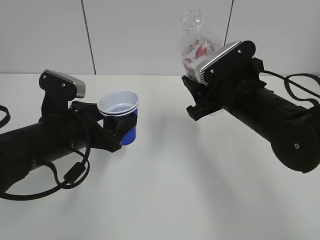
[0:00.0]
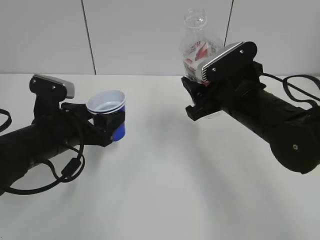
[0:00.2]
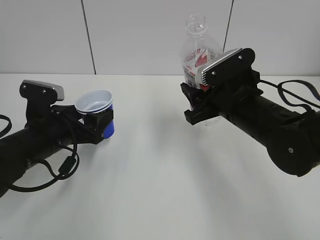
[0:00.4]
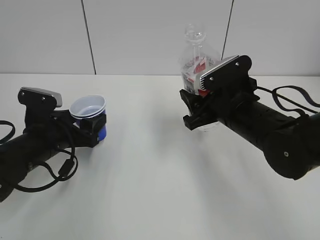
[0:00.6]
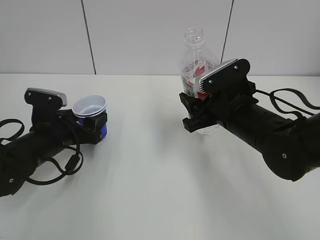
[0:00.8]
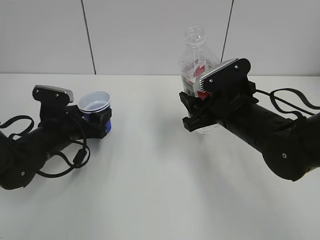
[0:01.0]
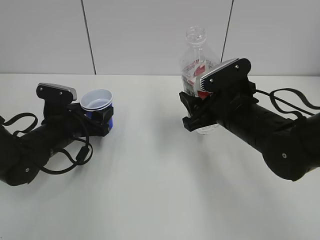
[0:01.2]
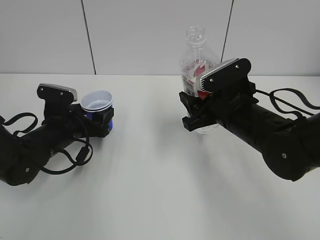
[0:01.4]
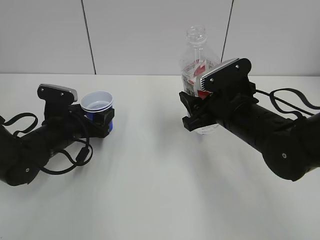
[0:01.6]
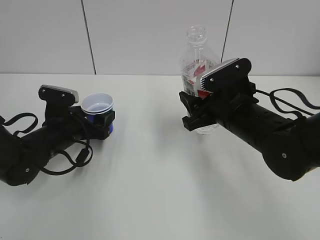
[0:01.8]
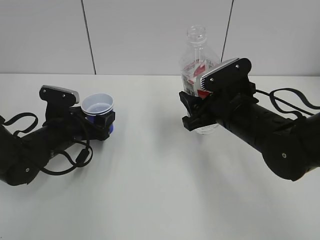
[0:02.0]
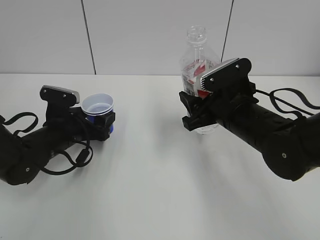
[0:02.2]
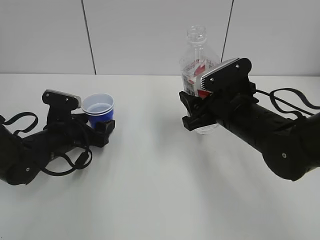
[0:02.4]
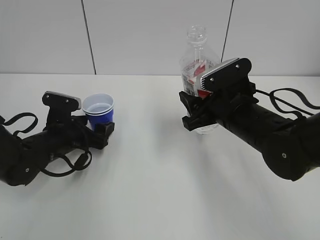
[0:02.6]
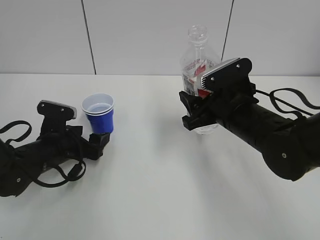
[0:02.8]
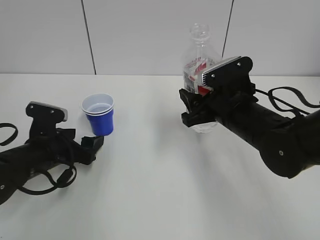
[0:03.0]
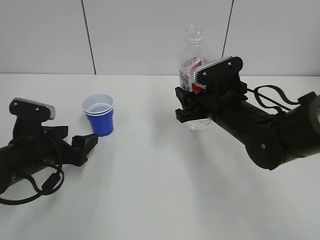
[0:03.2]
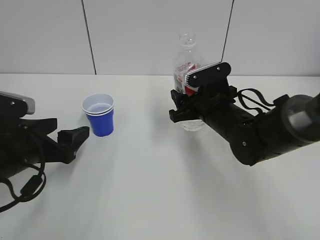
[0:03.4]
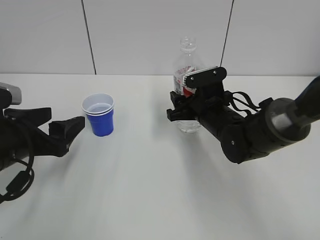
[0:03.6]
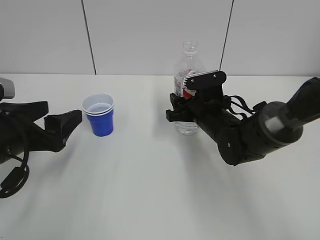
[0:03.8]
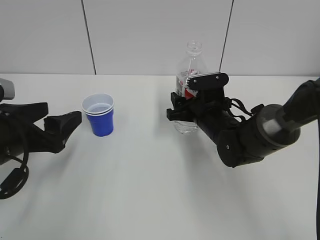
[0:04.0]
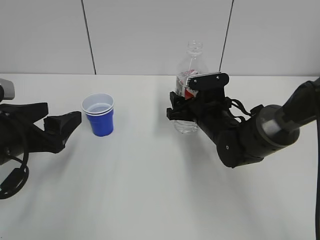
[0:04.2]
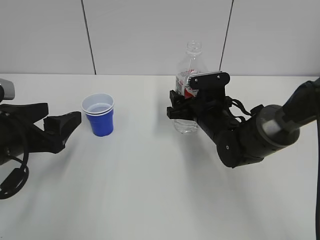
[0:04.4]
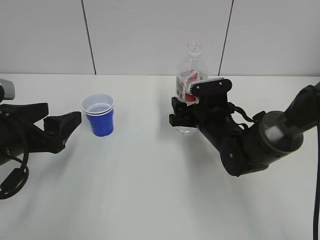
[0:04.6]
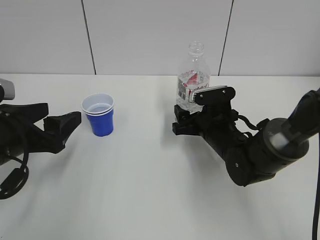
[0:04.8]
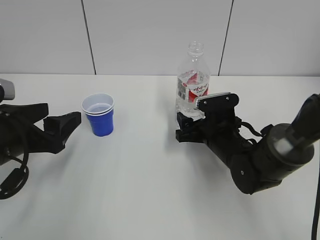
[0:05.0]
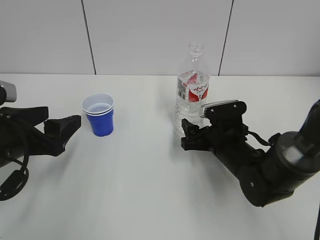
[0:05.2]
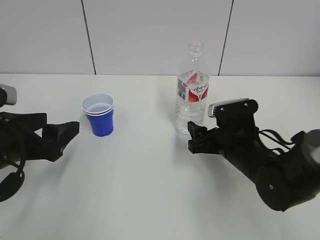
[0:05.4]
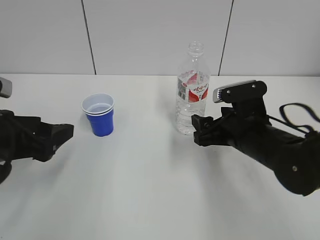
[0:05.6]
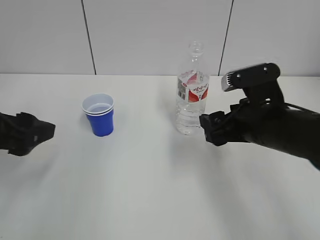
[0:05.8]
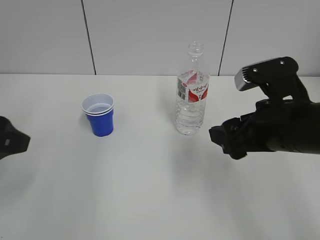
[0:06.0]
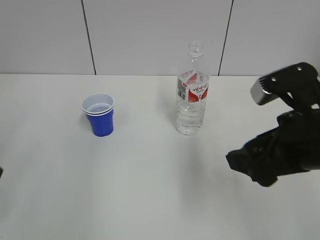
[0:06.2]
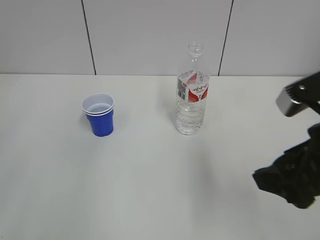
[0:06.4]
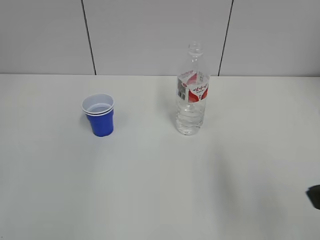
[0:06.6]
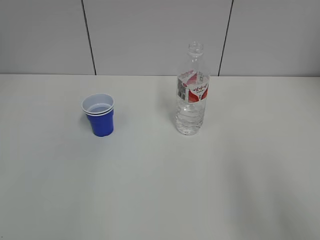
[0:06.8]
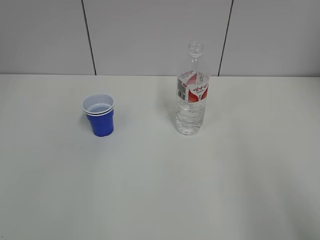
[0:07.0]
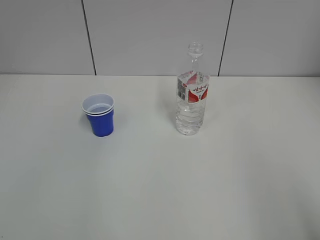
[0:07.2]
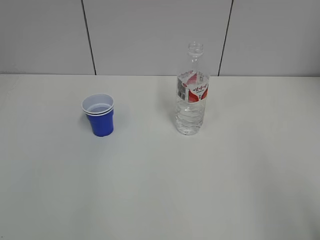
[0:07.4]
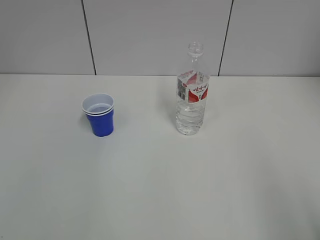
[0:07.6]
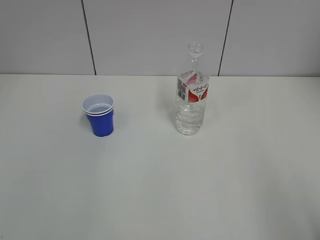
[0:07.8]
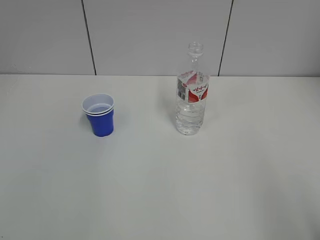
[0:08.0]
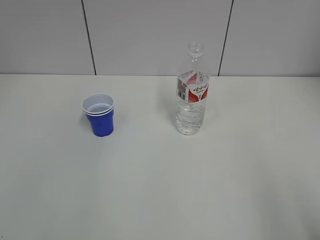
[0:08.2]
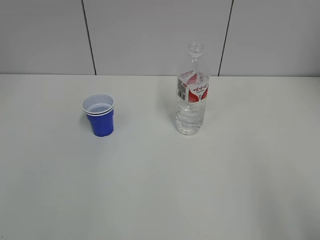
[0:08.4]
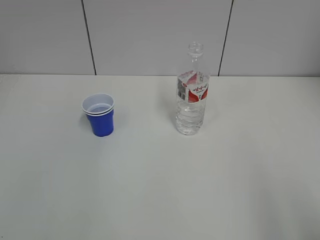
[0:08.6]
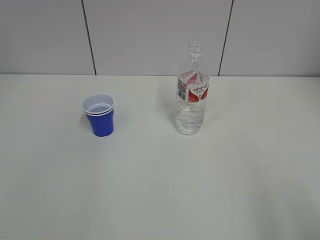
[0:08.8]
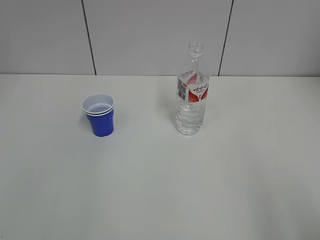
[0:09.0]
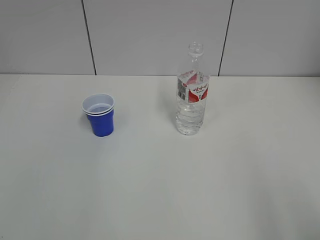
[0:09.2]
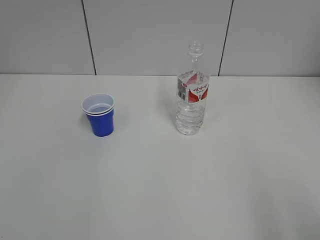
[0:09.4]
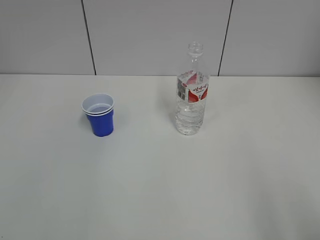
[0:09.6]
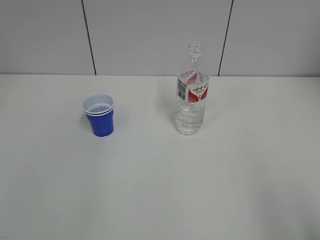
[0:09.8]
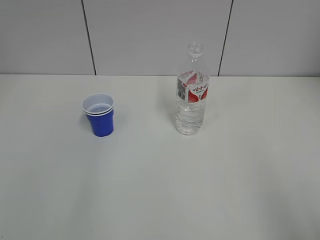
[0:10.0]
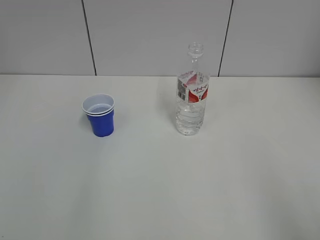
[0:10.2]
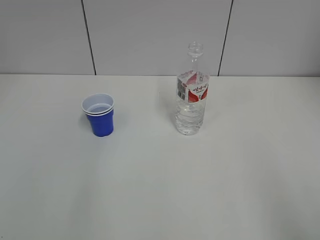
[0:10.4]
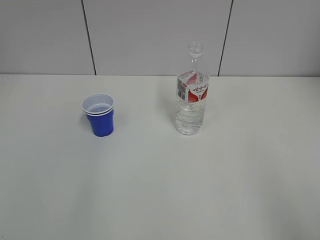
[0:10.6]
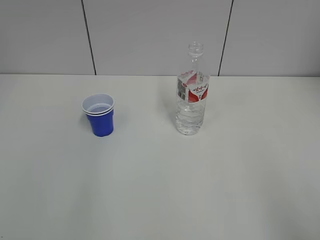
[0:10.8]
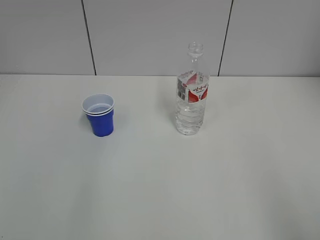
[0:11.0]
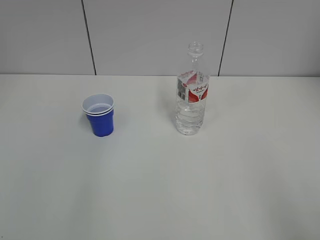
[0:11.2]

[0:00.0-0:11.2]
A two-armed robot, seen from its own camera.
Step, 0:00.0 to 0:03.0: Place the paper cup with the left hand.
Step, 0:03.2 to 0:05.2: Place the water bottle with the right hand.
0:00.0 to 0:01.6: The left gripper shifts about 10 cm forward and downward.
0:01.6 to 0:03.2: The left gripper moves backward, roughly 5 cm.
0:03.2 to 0:04.8: The right gripper moves downward, some 5 cm, and opens up. Meanwhile the left gripper moves upward, some 5 cm.
0:04.8 to 0:06.4: The left gripper moves backward and upward, some 15 cm. The right gripper travels backward and upward by about 25 cm.
0:06.4 to 0:08.0: The right gripper is displaced backward and to the right by about 20 cm.

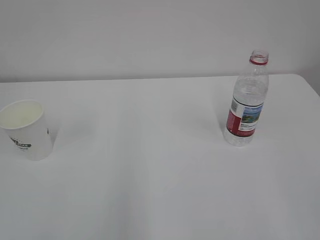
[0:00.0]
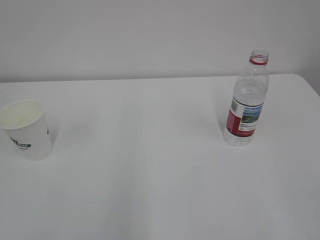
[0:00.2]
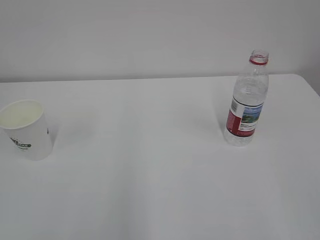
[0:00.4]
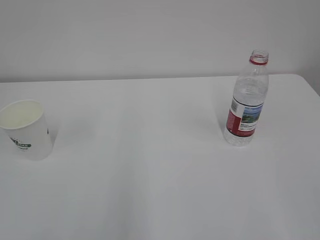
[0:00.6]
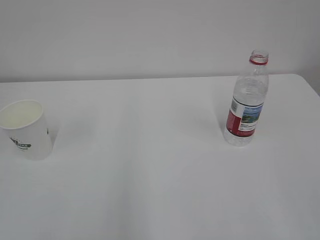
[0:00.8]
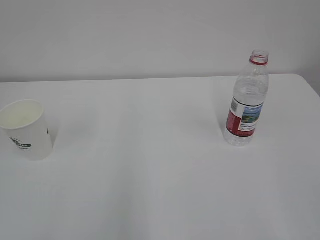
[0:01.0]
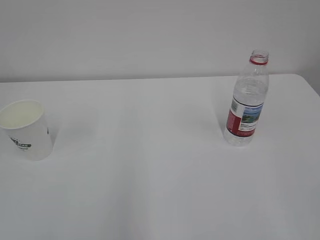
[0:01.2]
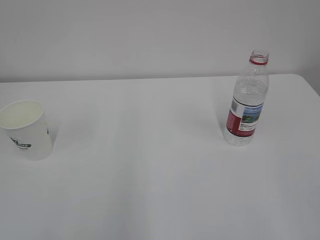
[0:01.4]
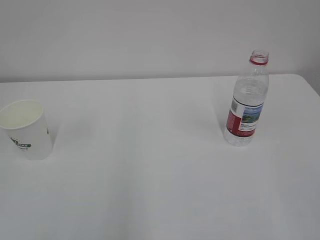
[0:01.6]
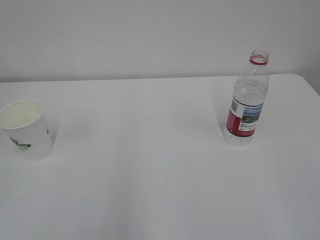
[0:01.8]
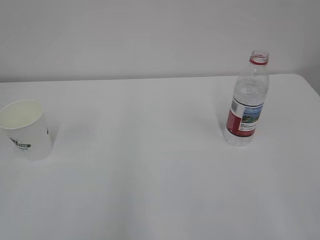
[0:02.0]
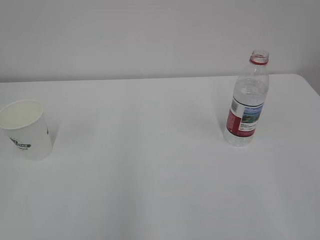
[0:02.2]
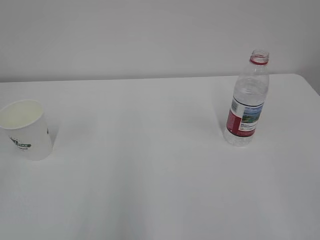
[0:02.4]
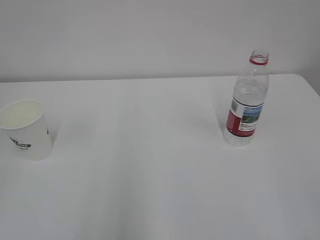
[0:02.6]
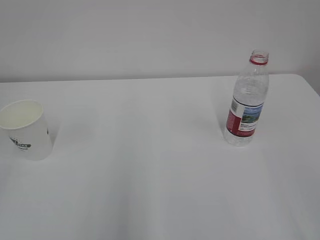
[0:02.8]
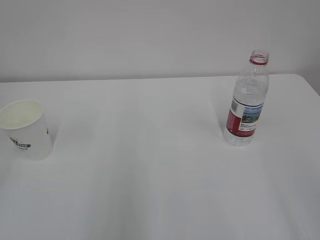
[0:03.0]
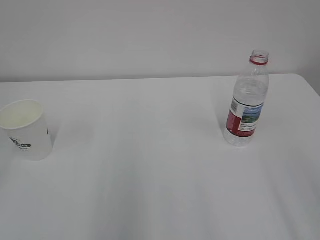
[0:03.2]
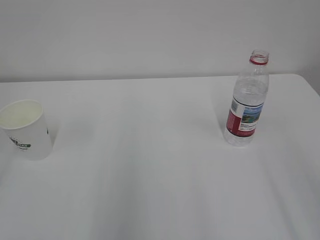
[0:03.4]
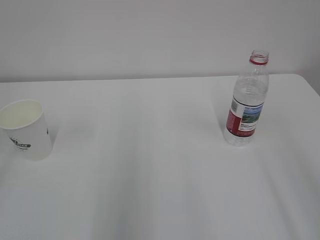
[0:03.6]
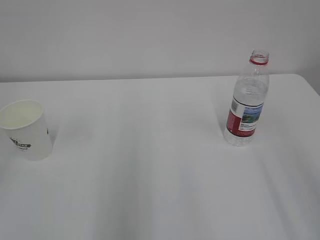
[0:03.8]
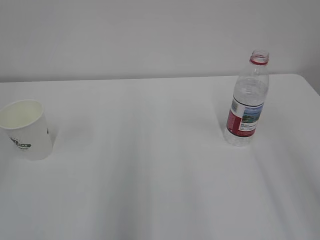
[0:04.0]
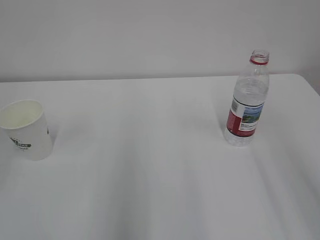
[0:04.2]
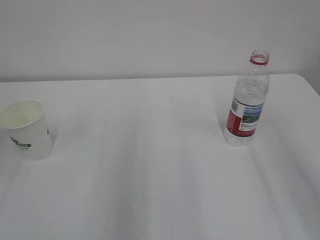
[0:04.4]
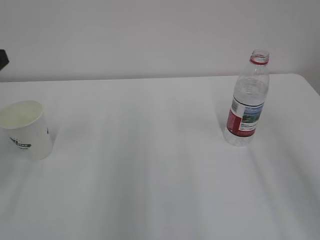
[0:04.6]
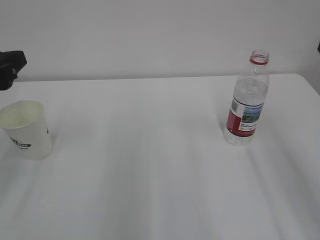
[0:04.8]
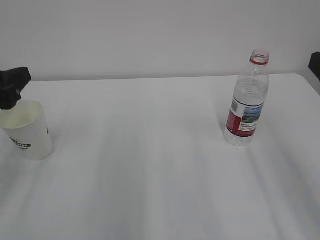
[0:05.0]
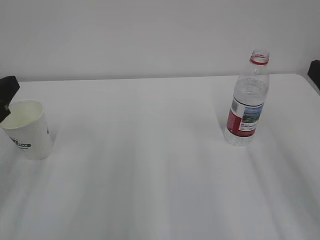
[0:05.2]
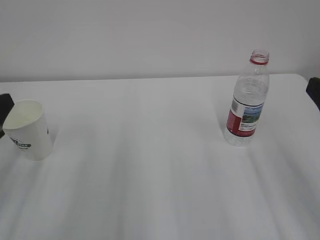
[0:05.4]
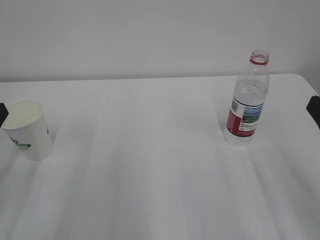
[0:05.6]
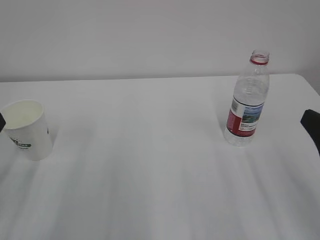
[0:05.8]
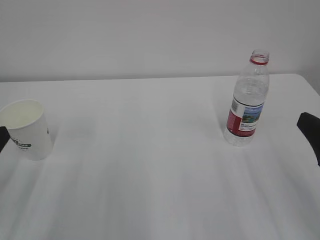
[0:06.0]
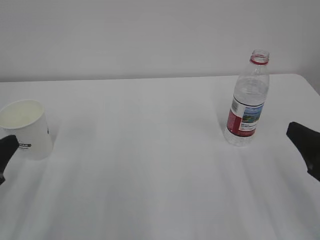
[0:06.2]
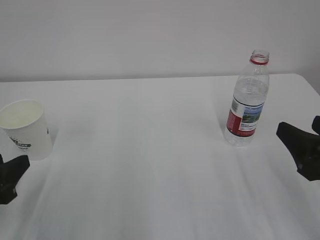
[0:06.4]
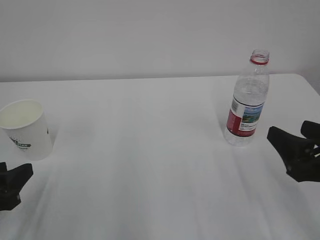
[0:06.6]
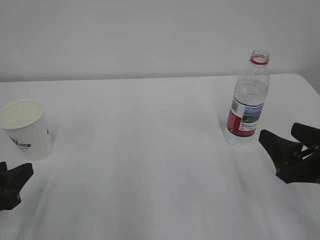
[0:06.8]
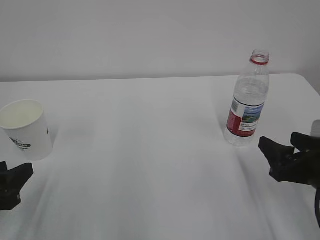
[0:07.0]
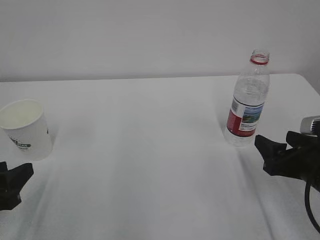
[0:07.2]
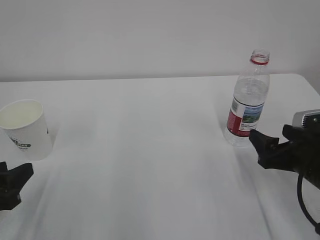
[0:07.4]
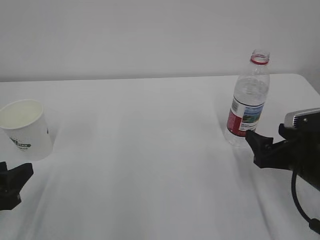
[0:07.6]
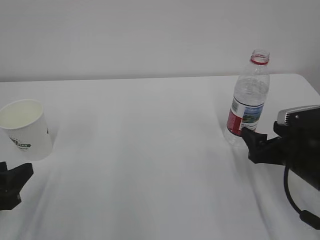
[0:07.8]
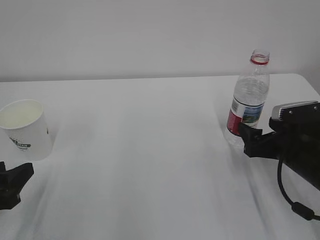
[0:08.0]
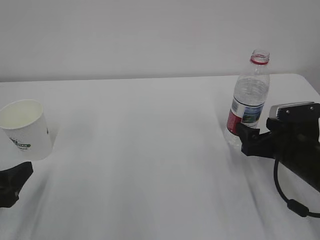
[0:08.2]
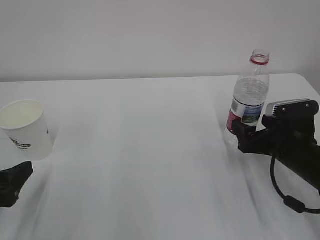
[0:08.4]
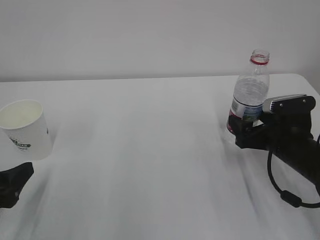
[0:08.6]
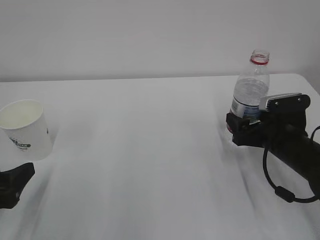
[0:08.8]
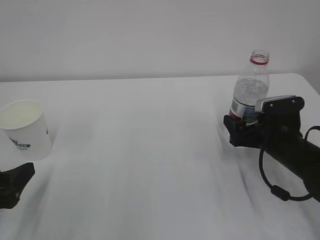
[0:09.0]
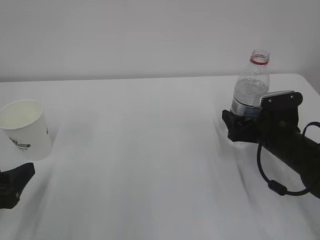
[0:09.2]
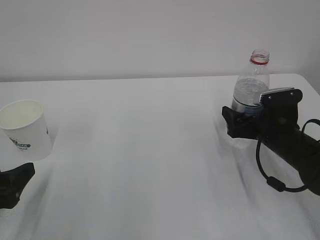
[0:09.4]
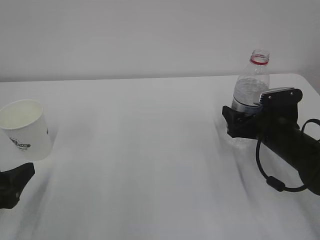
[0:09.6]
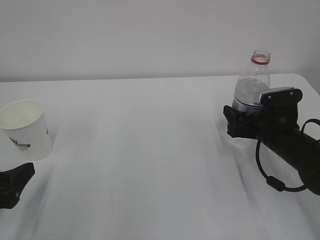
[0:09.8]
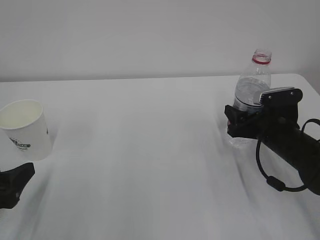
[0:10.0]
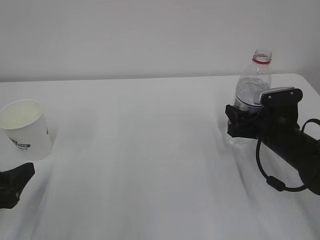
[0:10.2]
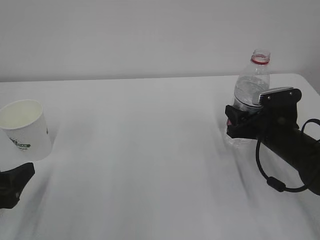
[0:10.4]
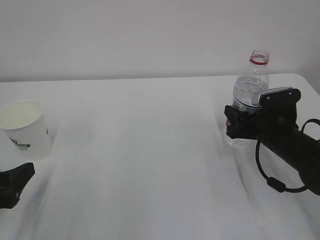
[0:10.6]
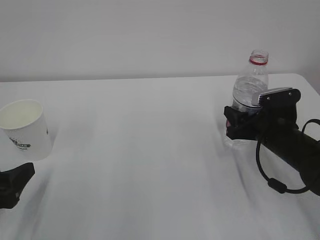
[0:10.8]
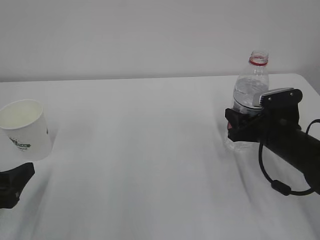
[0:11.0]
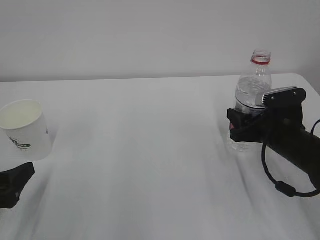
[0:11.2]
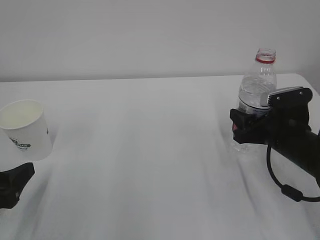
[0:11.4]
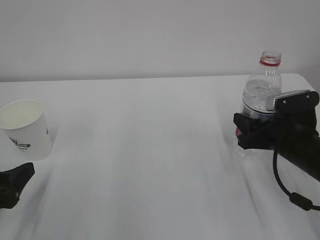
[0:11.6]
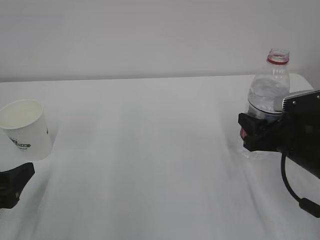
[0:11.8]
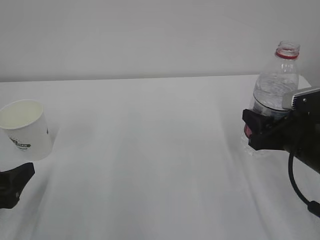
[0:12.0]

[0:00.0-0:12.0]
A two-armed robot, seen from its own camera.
0:04.4 to 0:06.0: The right gripper shifts approximately 10 cm downward.
0:06.0 to 0:07.6: The right gripper shifts about 15 cm downward and forward.
0:07.6 to 0:09.0: The right gripper moves forward, about 5 cm.
0:09.0 to 0:10.4: The right gripper closes.
0:10.4 to 0:12.0: The right gripper goes roughly 10 cm backward and upward.
